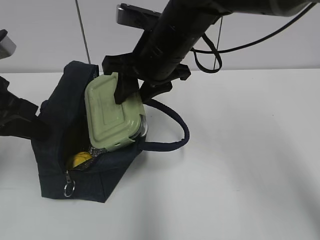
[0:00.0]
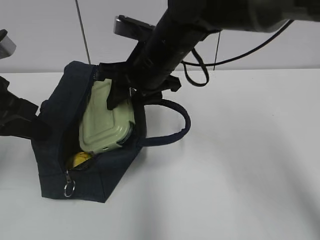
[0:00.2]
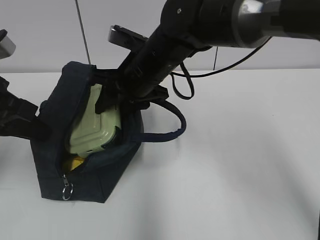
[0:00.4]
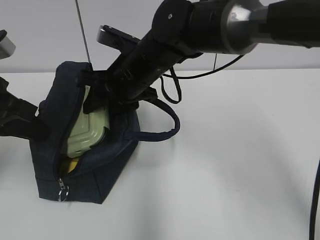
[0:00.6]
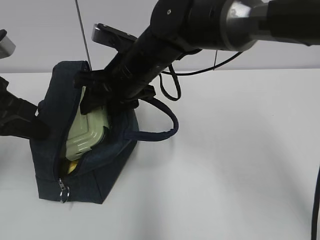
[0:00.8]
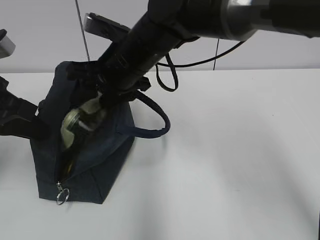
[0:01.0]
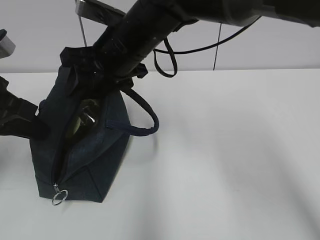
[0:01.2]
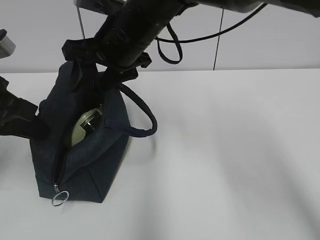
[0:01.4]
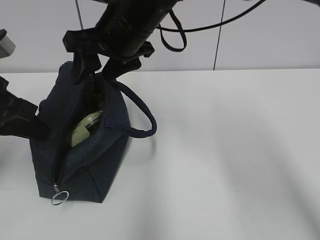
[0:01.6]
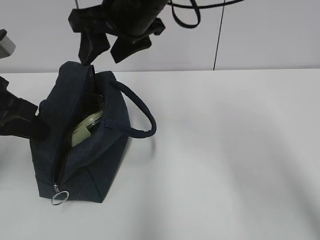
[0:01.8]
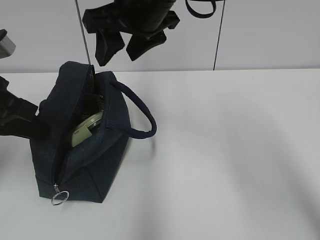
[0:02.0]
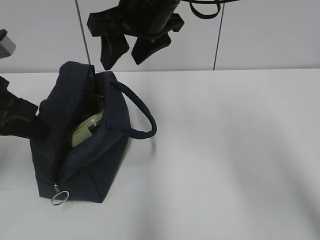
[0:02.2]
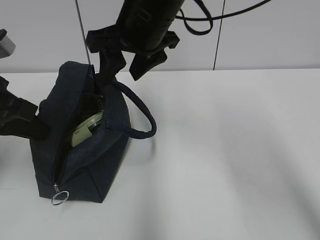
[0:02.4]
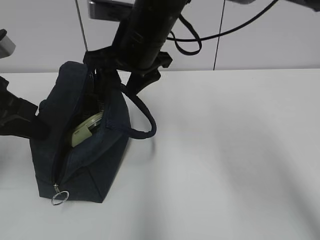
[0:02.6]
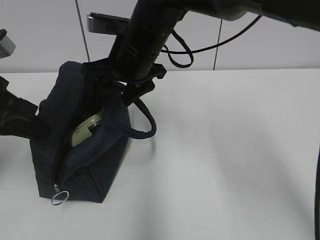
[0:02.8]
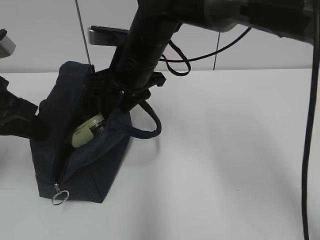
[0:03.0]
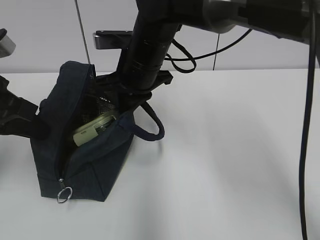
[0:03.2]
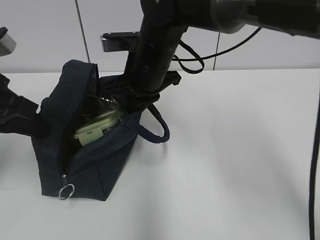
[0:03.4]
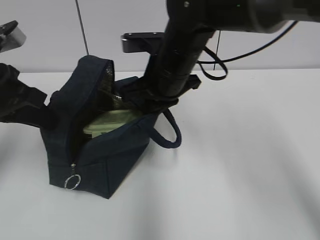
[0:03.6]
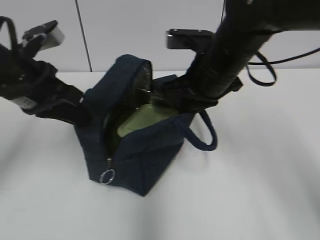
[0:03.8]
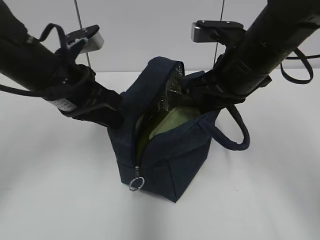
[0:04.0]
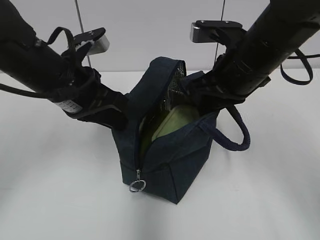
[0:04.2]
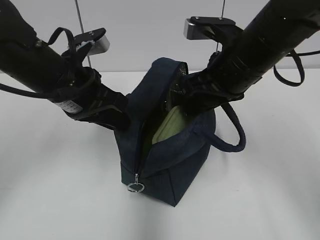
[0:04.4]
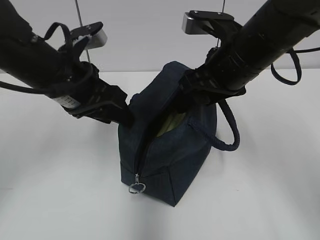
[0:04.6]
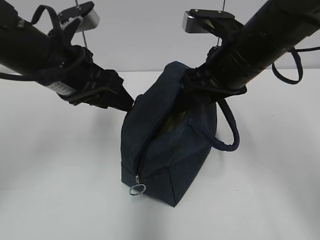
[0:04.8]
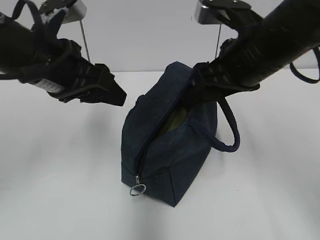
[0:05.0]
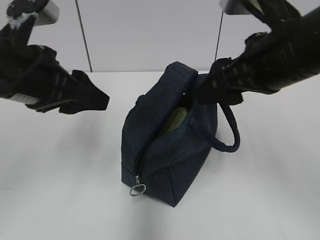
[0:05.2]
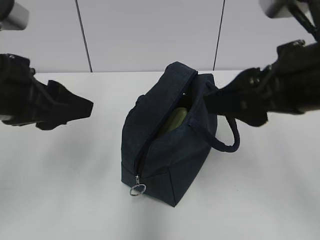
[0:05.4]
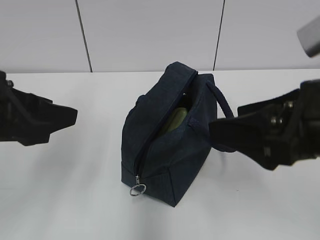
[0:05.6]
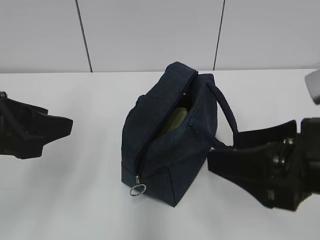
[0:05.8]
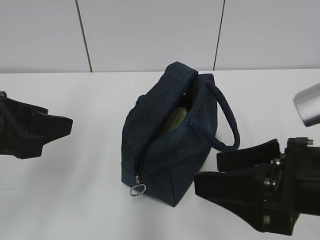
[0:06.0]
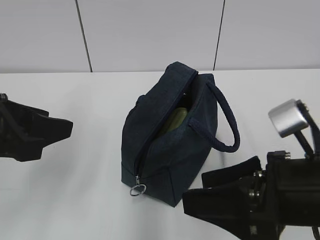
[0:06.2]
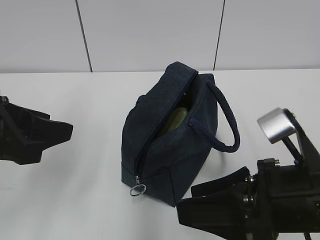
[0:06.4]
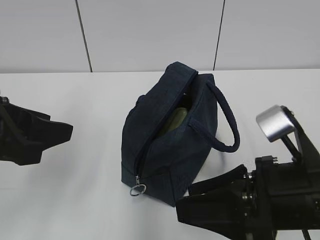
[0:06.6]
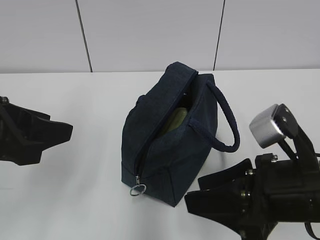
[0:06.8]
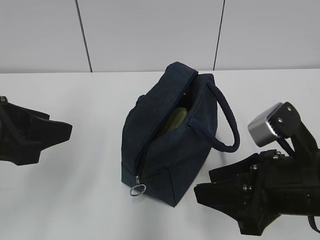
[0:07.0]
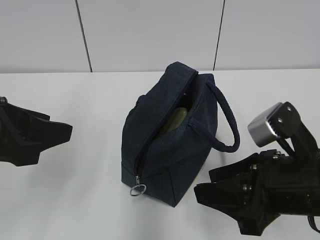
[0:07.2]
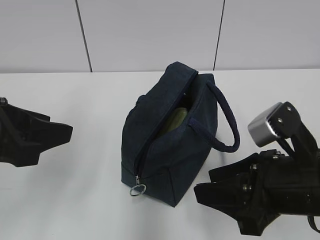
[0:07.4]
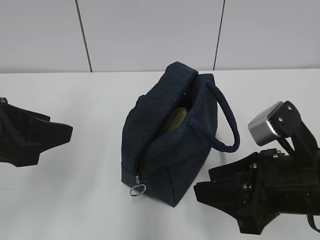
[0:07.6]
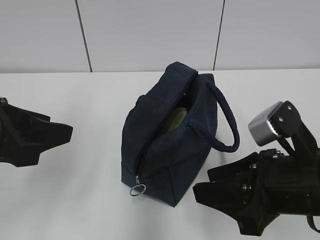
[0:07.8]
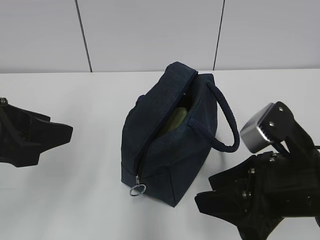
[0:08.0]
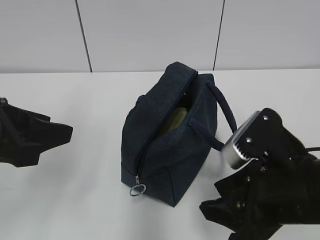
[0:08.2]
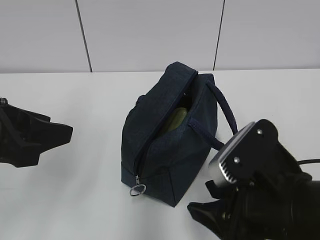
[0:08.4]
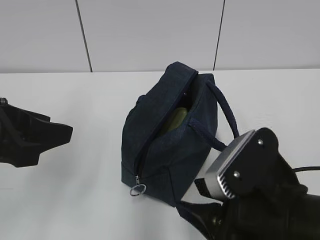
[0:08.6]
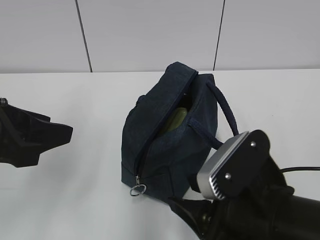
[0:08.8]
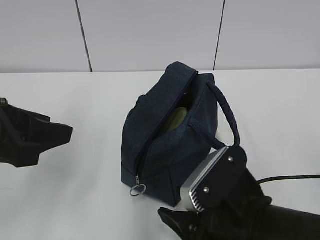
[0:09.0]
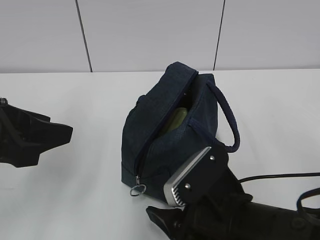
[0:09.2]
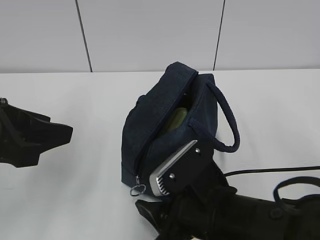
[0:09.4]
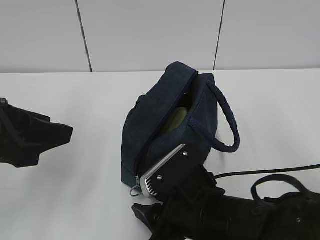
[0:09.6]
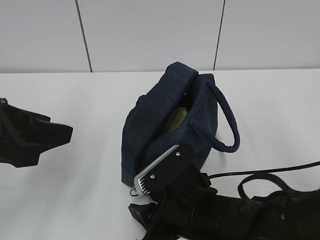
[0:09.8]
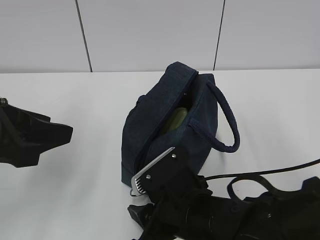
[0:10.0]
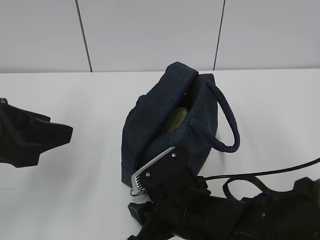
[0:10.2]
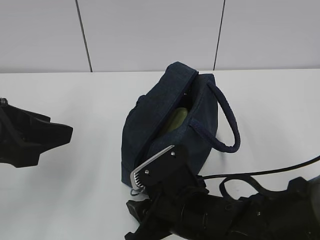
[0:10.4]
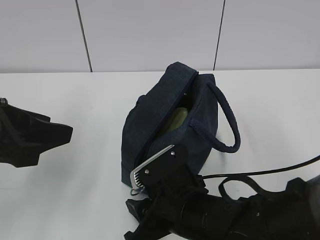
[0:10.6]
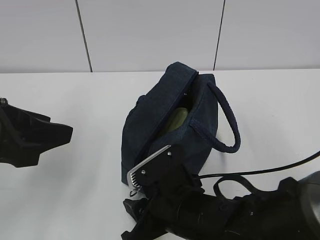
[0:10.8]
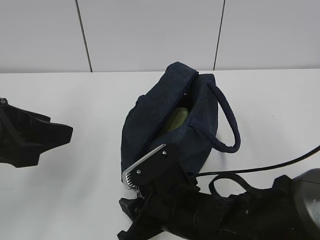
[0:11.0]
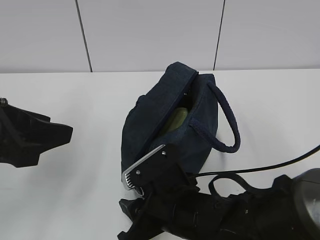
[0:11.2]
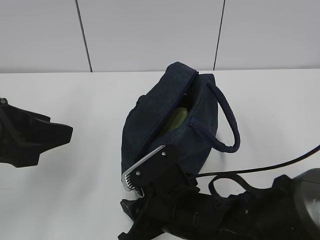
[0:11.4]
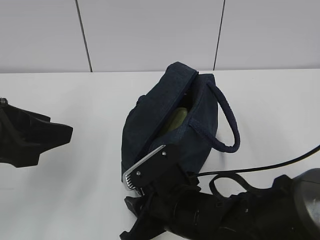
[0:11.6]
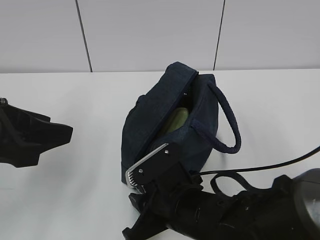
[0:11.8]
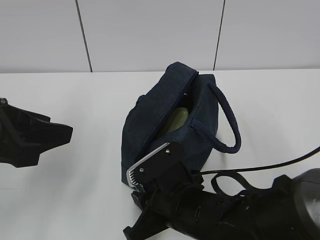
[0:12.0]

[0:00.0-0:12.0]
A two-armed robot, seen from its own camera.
Step, 0:01.6 to 0:03.4: Grab the lunch bag with your right hand.
Step, 0:03.8 to 0:04.8: Move the lunch bag to the right.
0:00.0 to 0:01.6: The right gripper moves about 5 cm.
0:01.6 to 0:03.0: The right gripper travels downward by some 5 cm, and closes its fingers.
0:03.0 to 0:04.4: The left gripper is displaced to the right by approximately 10 cm, and opens up; the right gripper travels to the right and backward by roughly 15 cm, and closes, then opens again.
0:04.4 to 0:06.0: The right gripper travels backward by approximately 15 cm. The left gripper moves backward and to the left, roughly 15 cm, and opens.
0:06.0 to 0:07.6: The grippers move only a little.
0:07.6 to 0:09.0: The right gripper moves to the left, about 5 cm.
0:09.0 to 0:10.4: The right gripper travels to the left by some 5 cm.
0:10.4 to 0:12.0: The two grippers keep their place.

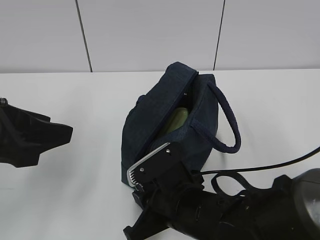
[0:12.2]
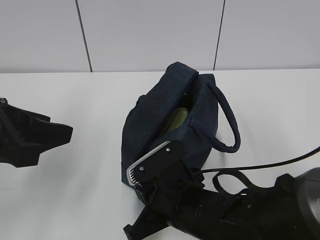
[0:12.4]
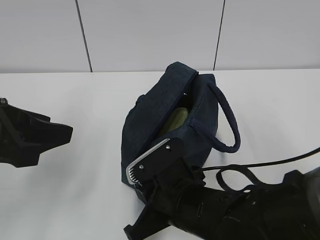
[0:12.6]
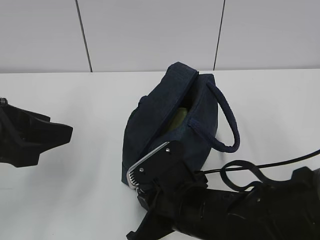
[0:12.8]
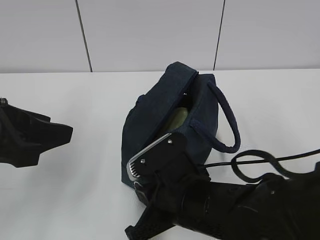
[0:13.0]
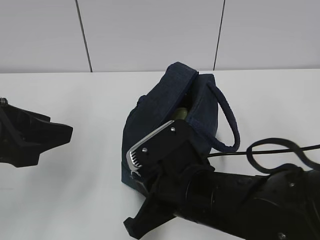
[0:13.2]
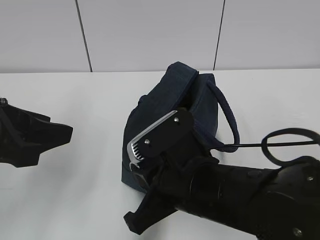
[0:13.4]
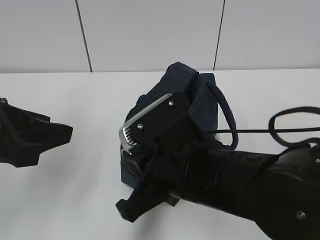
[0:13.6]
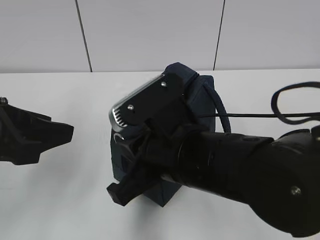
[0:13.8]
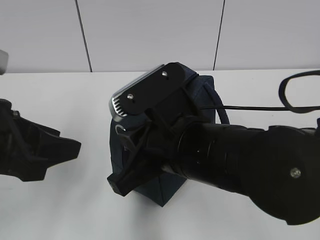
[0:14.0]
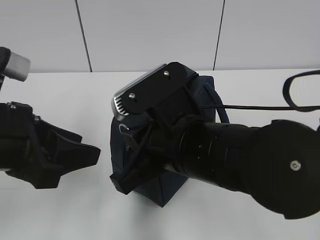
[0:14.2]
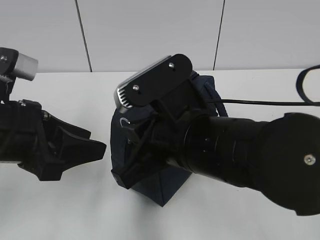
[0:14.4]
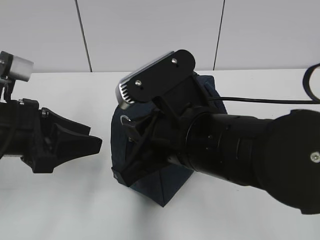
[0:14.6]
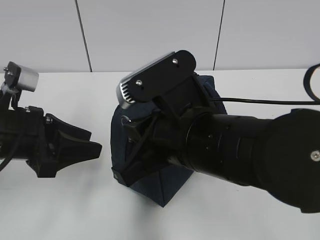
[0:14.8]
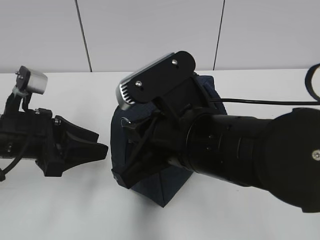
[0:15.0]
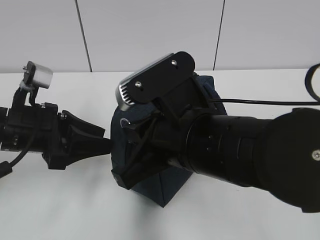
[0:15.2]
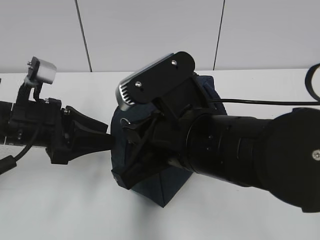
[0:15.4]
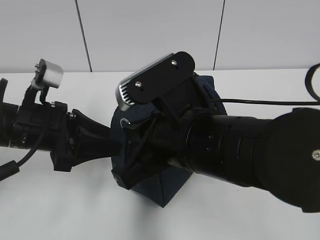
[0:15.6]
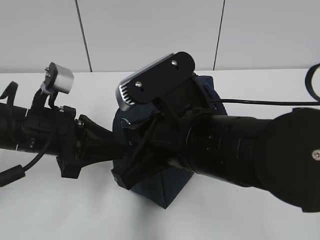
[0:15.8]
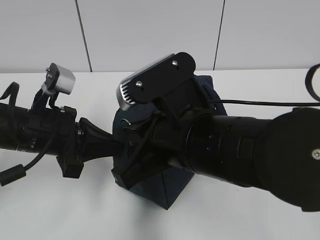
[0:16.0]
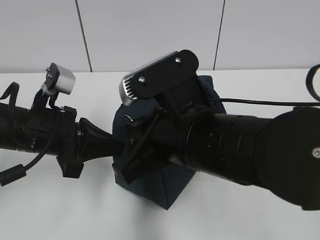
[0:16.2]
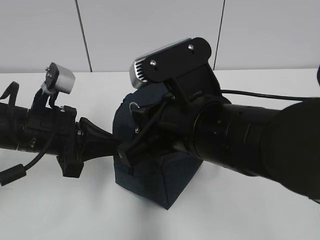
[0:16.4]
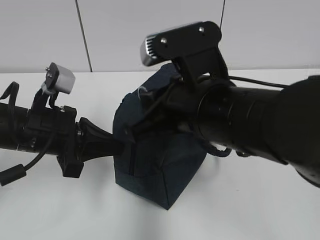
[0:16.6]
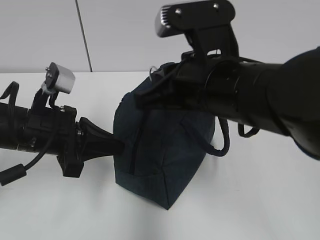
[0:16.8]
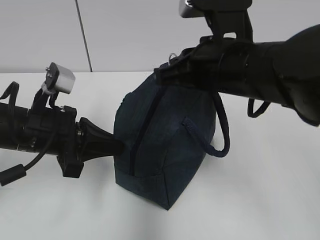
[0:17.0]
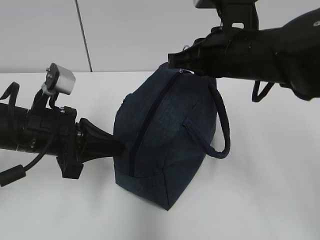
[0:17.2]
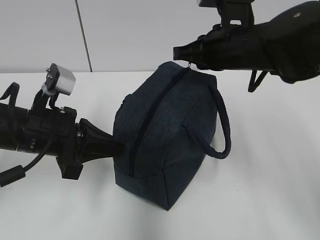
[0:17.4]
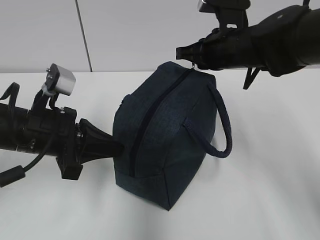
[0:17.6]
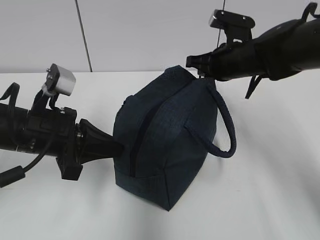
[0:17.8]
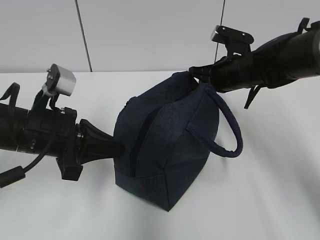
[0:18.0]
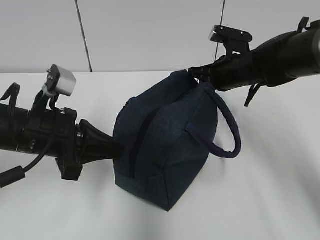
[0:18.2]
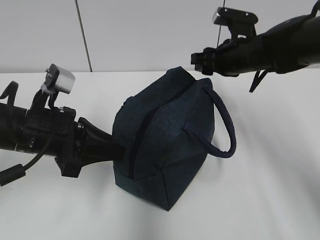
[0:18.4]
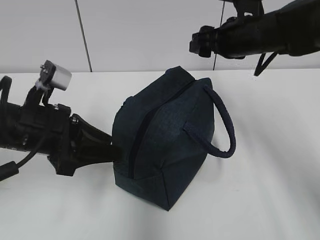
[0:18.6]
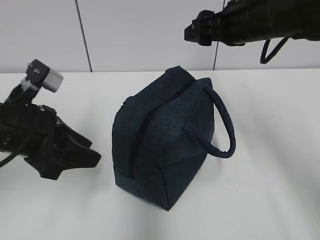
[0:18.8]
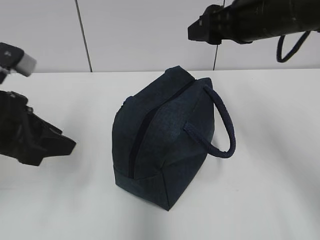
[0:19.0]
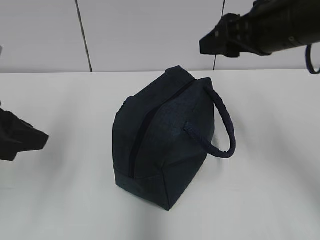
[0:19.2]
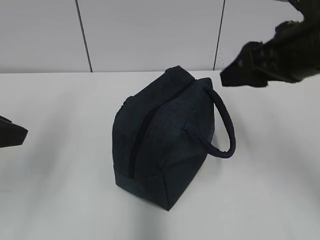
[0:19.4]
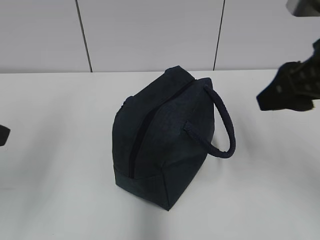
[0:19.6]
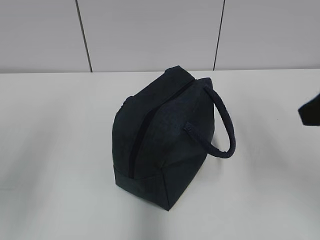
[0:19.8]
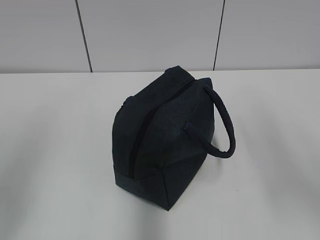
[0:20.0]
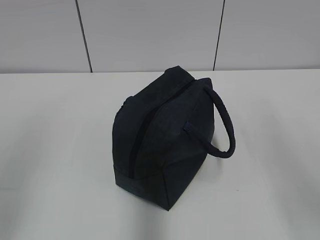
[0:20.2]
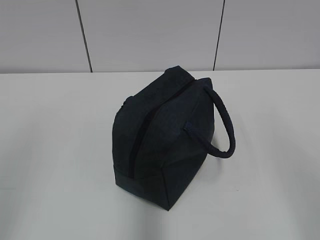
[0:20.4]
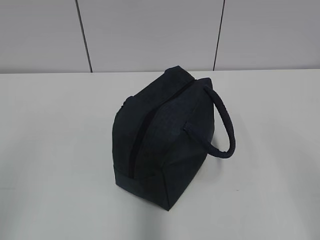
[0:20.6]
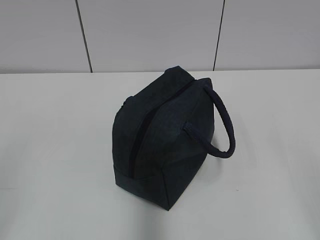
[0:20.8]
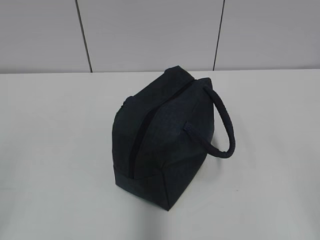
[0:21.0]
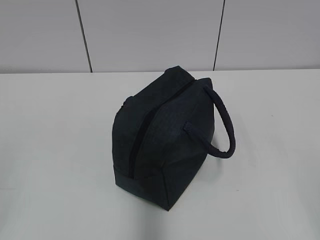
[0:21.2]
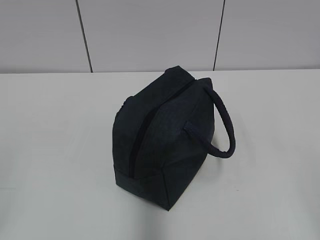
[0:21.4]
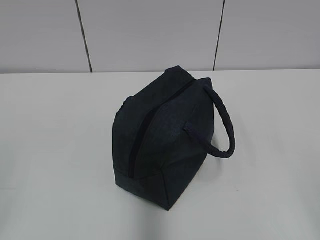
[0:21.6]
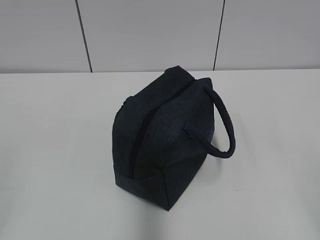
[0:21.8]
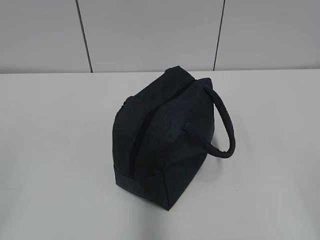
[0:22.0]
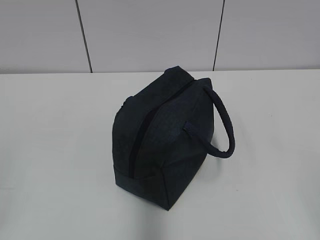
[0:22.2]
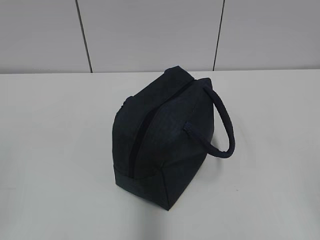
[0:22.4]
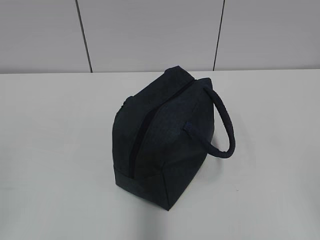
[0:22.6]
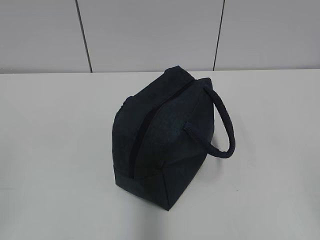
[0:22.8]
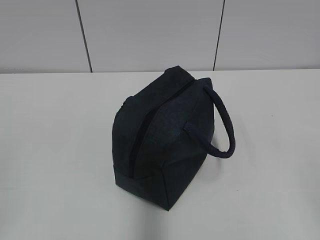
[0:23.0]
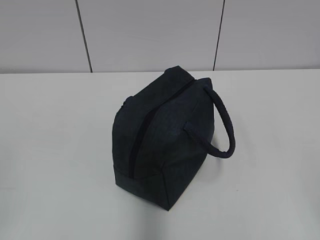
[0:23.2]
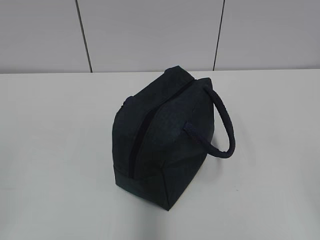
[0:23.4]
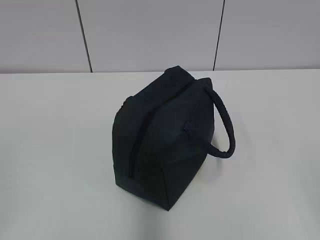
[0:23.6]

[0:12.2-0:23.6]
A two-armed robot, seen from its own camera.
Step, 0:12.2 to 0:16.6: Grab the lunch bag with your left hand.
Step, 0:17.0 to 0:18.0: Pull the zipper with your right hand.
0:12.2 to 0:13.6: The right gripper goes approximately 10 cm upward.
0:13.6 to 0:15.0: The left gripper goes some 10 cm downward and forward.
0:15.0 to 0:16.4: The left gripper closes its fingers.
0:16.4 to 0:17.8: The right gripper travels forward and to the right by about 25 cm.
0:17.8 to 0:19.4: The left gripper is displaced upward, backward and to the left by approximately 15 cm, and opens. Meanwhile the right gripper moves backward and upward, roughly 20 cm, and opens.
0:19.4 to 0:20.8: The right gripper shifts approximately 25 cm backward; the left gripper travels backward by about 15 cm.
